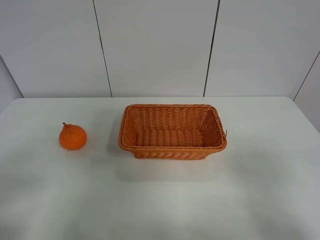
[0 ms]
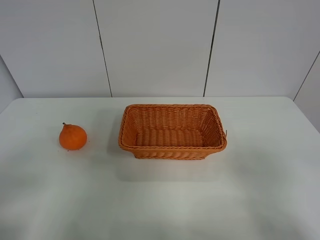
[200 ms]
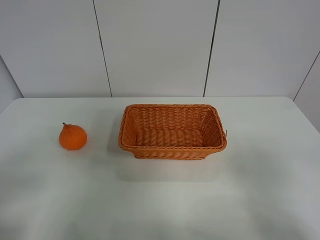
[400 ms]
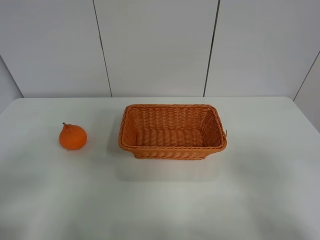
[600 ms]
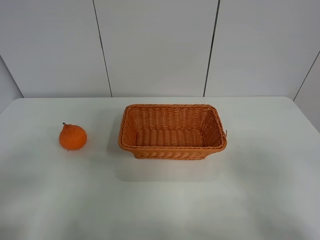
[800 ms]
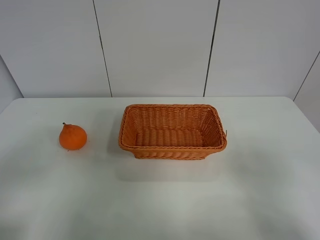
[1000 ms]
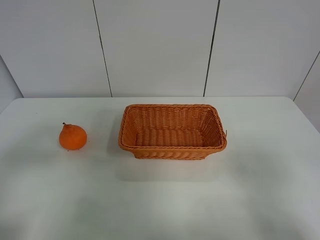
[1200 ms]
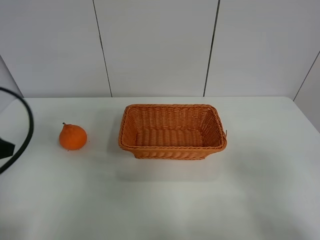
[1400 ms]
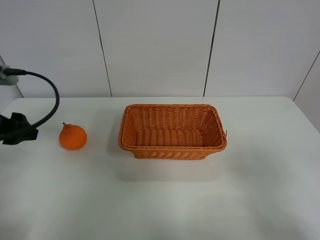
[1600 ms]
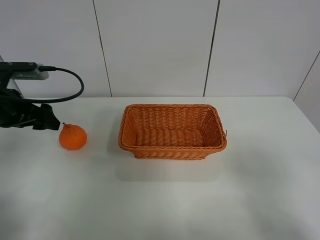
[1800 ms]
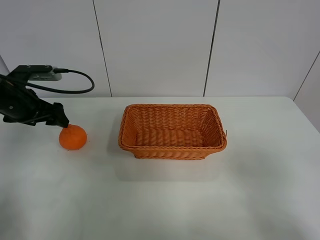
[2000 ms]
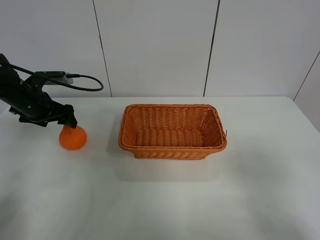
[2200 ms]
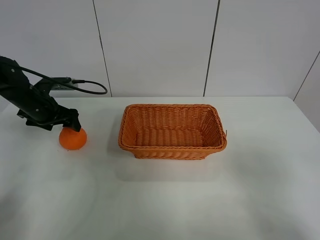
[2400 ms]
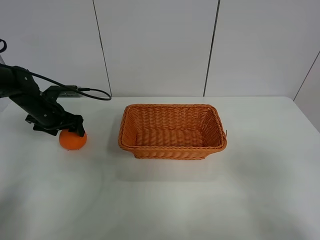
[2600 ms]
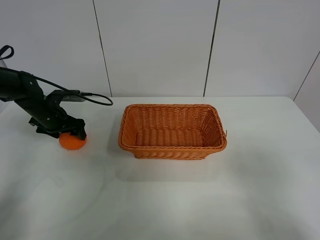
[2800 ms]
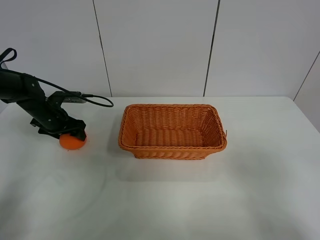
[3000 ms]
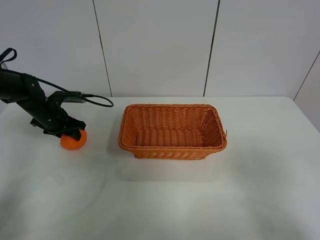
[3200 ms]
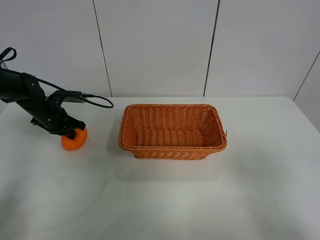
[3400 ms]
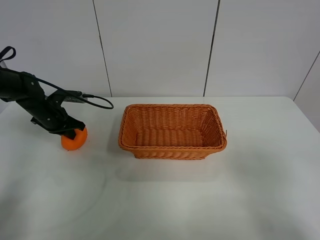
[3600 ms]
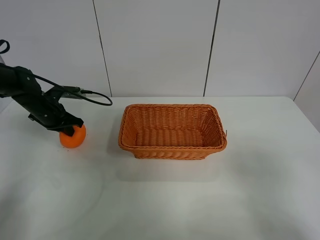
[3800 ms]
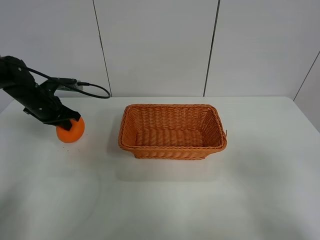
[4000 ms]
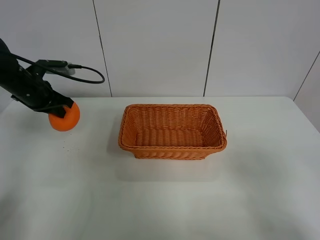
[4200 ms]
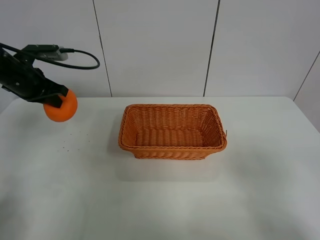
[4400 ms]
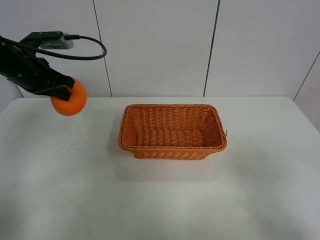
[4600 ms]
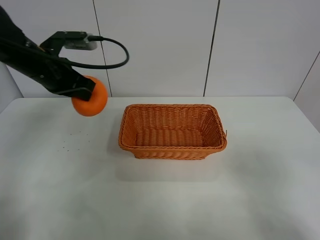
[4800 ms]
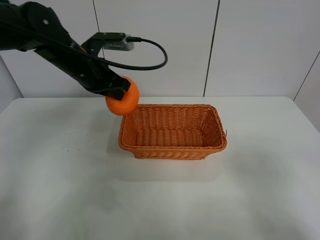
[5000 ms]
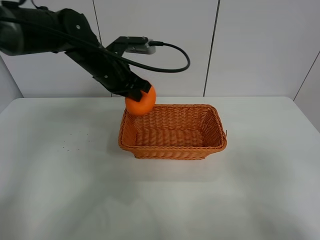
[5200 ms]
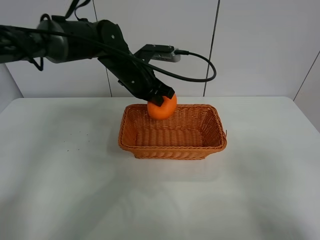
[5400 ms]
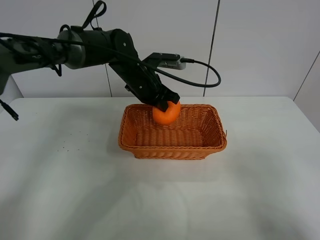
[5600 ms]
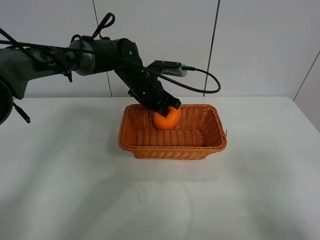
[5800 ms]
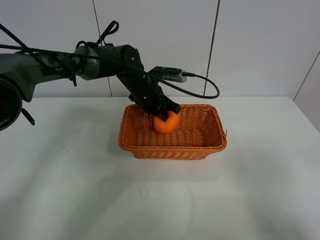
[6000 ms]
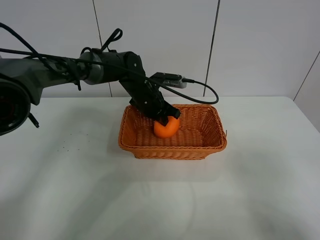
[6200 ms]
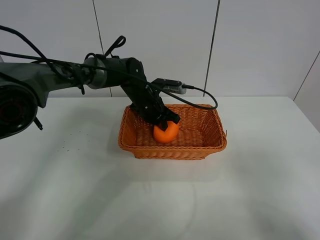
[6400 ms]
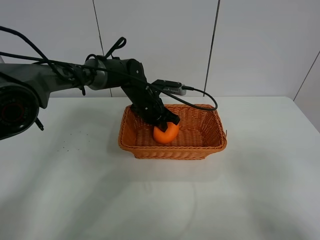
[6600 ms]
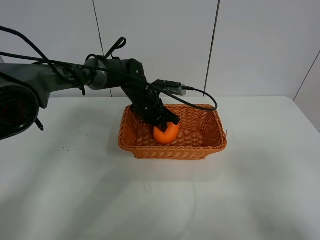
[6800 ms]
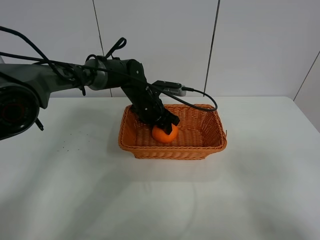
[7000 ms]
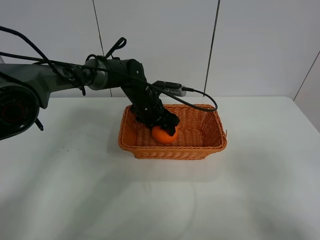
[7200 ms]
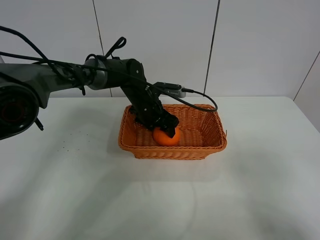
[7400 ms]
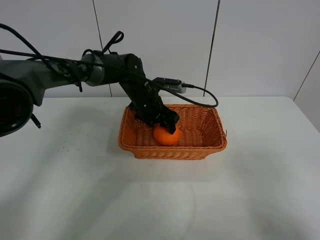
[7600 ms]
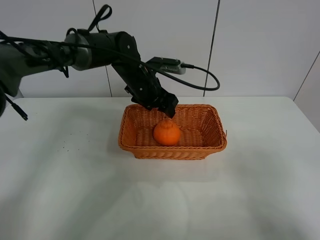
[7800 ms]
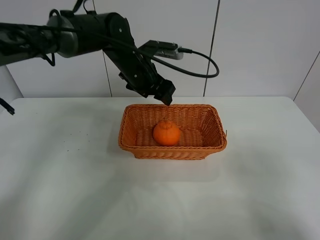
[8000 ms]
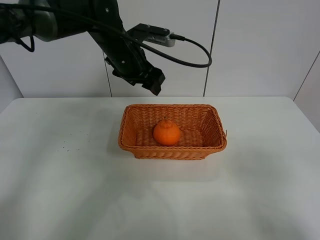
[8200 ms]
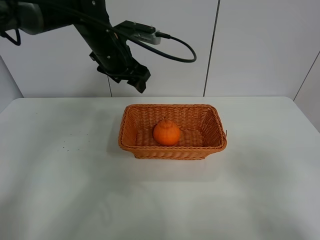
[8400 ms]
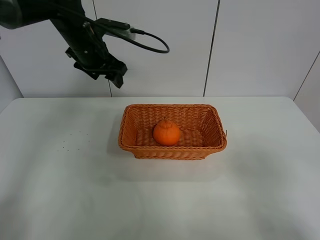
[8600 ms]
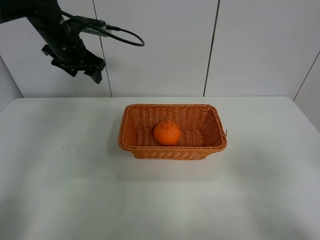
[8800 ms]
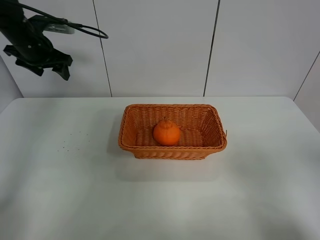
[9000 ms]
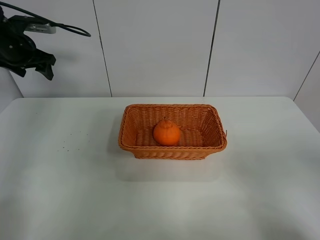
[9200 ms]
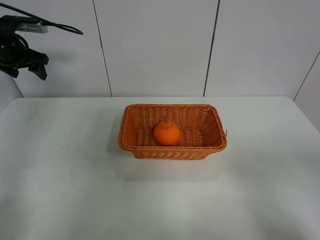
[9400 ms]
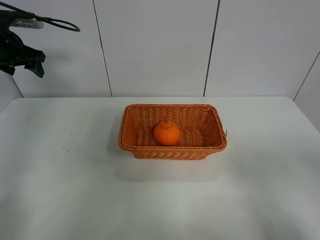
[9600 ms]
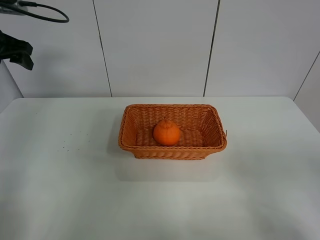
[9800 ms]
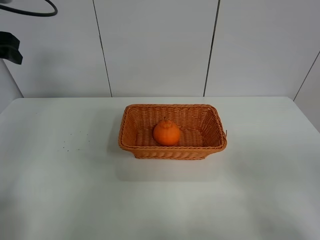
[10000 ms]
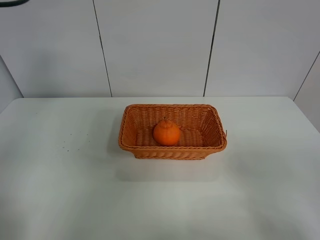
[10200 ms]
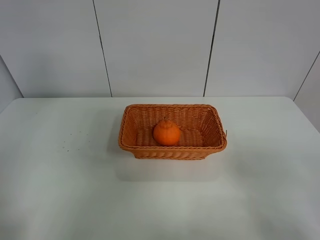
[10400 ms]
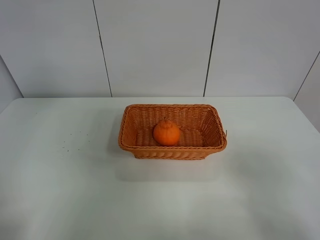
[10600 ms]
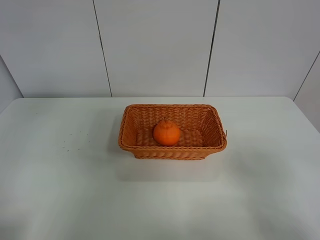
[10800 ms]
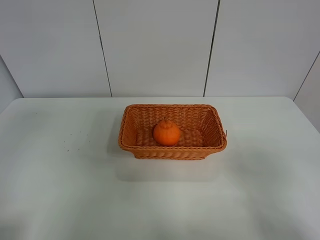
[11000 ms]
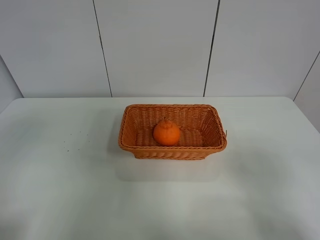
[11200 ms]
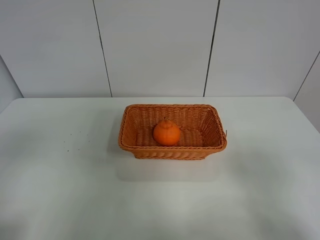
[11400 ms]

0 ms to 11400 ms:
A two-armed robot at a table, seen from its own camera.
Task of the whole recording: left gripper grabs oranges and puts them in the basket.
Step, 0 ms to 3400 ms: Grasp the orange with left gripper.
Step, 3600 ms to 8600 ms: Place the orange in the basket with left gripper.
0 ms to 1400 ms: The left gripper shifts some 15 cm forward.
1400 ms to 2800 ms: The left gripper heads forward and downward, covering approximately 30 cm.
2800 ms to 4200 ms: The left gripper heads upward, covering approximately 10 cm, and closes.
4200 ms to 5600 ms: The left gripper moves to the right, approximately 25 cm.
5600 ms to 7200 ms: The left gripper is displaced downward by approximately 5 cm, and opens its fingers.
7200 ms to 8600 ms: The left gripper goes about 20 cm upward and to the left.
8600 ms to 10000 ms: The left gripper goes some 20 cm to the left, backward and upward.
10000 ms to 11400 ms: The left gripper heads backward, covering roughly 35 cm.

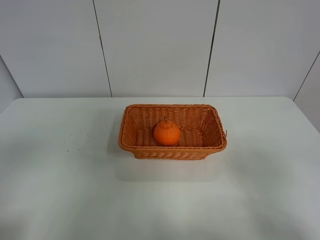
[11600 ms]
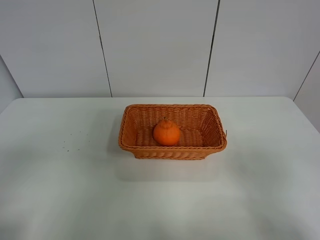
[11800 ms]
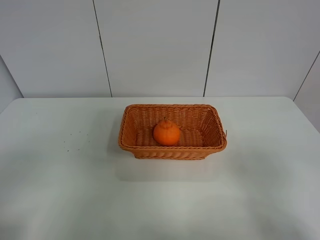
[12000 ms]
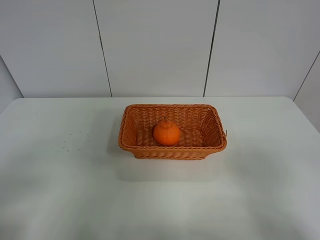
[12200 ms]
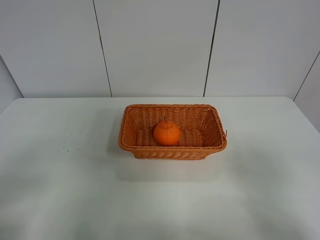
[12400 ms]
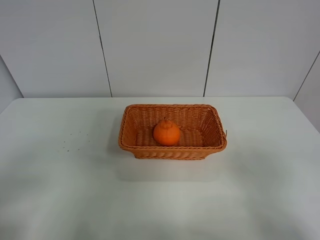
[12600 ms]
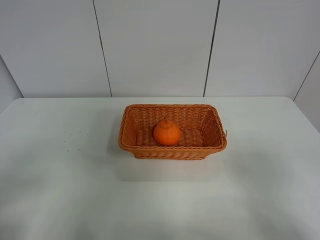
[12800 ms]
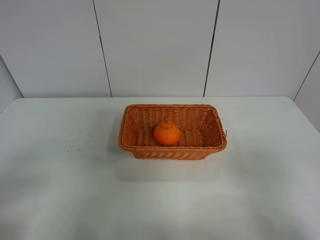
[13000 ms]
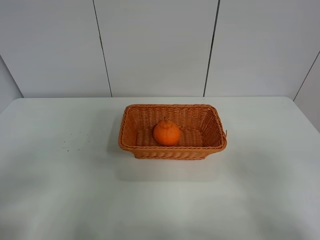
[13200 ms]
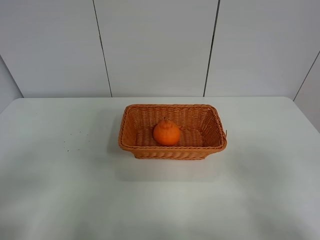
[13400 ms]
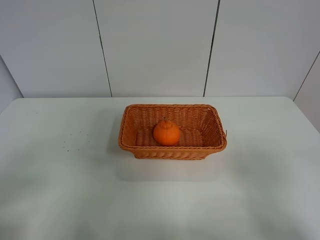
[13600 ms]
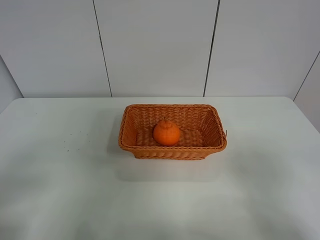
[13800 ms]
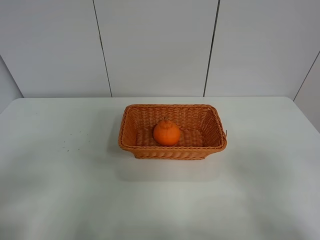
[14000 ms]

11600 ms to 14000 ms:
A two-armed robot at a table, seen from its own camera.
Task of the whole recording: left gripper grabs oranges and puts them in the basket.
12800 ms to 14000 ms: Both grippers stay about where they are.
